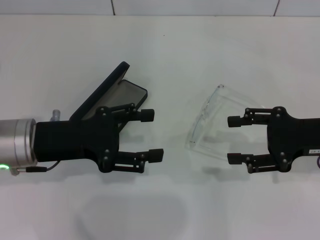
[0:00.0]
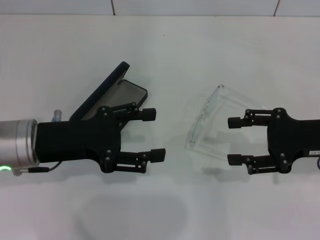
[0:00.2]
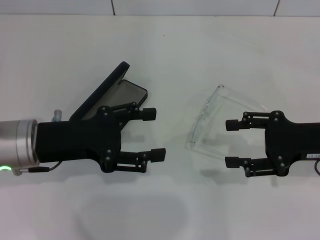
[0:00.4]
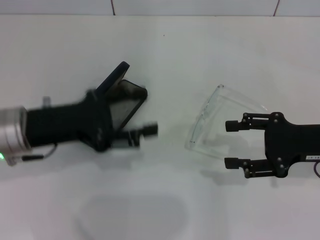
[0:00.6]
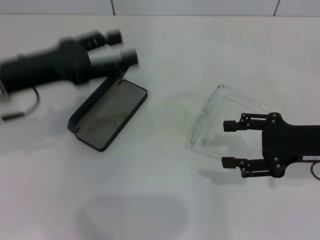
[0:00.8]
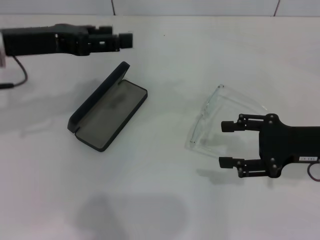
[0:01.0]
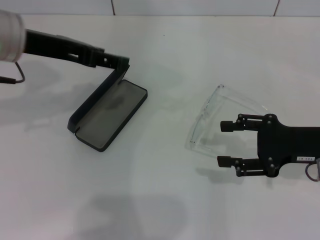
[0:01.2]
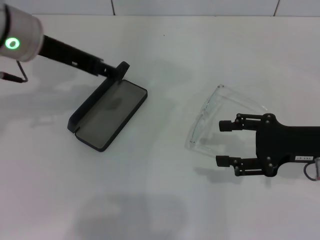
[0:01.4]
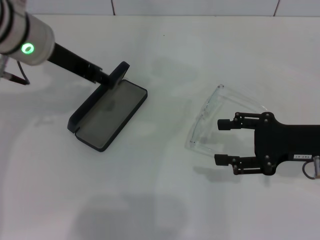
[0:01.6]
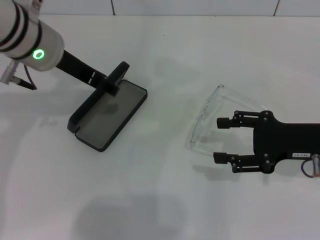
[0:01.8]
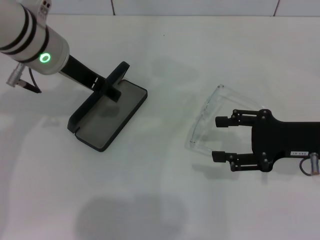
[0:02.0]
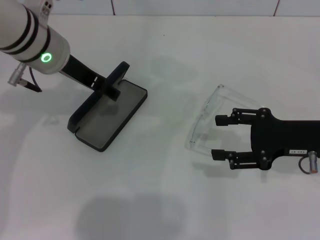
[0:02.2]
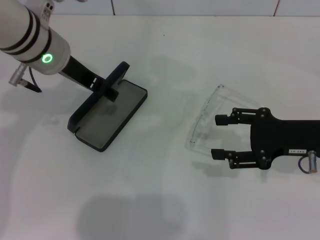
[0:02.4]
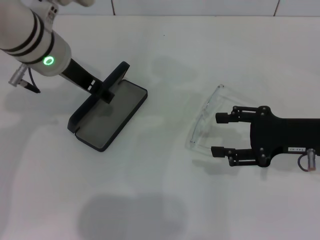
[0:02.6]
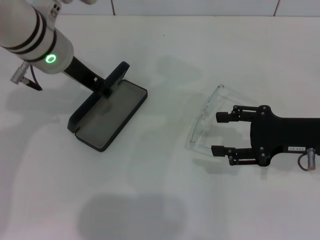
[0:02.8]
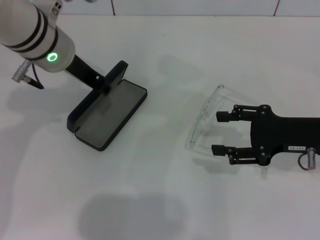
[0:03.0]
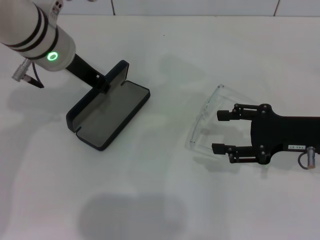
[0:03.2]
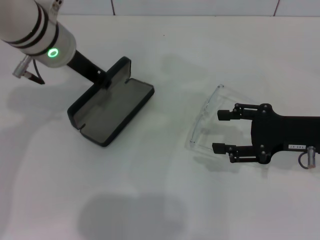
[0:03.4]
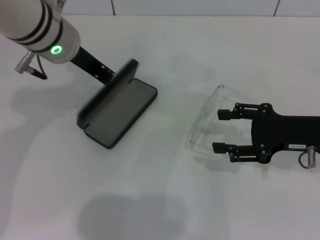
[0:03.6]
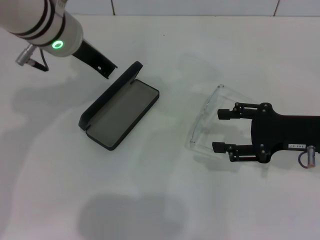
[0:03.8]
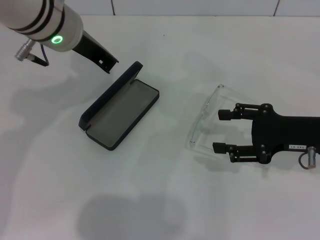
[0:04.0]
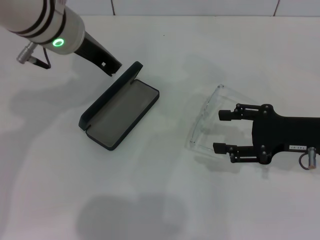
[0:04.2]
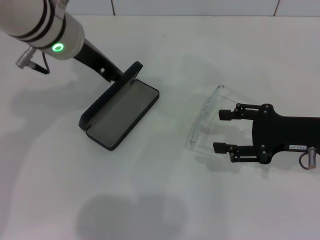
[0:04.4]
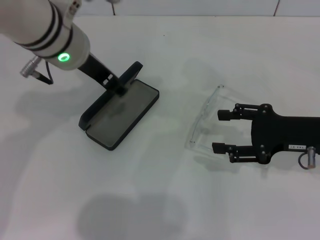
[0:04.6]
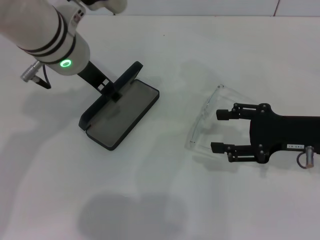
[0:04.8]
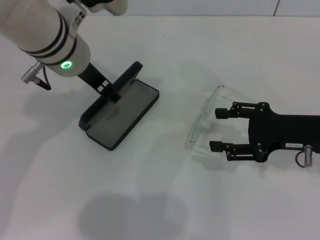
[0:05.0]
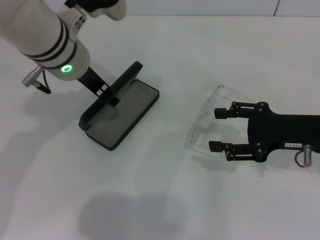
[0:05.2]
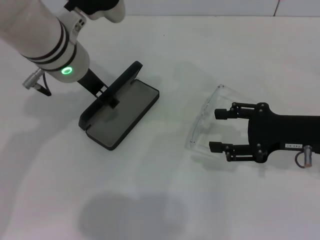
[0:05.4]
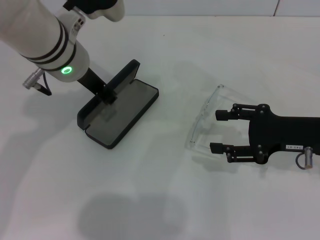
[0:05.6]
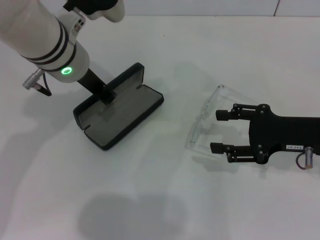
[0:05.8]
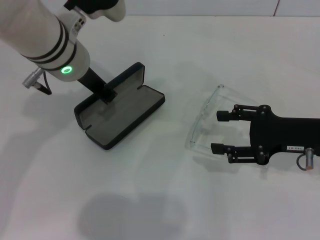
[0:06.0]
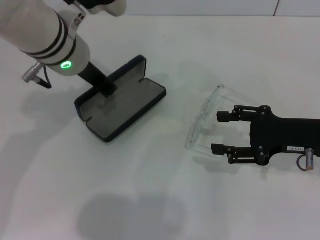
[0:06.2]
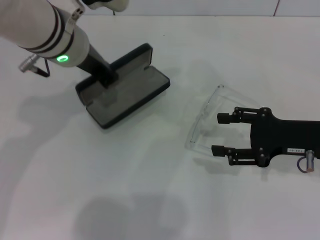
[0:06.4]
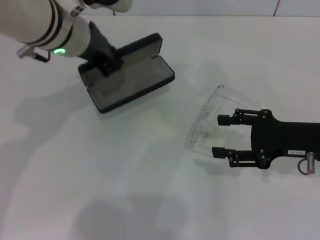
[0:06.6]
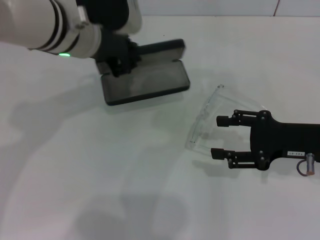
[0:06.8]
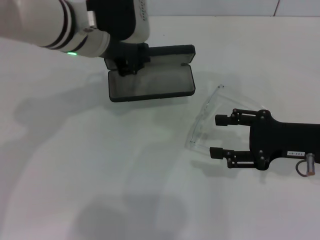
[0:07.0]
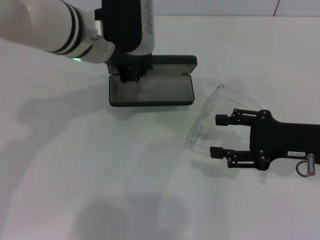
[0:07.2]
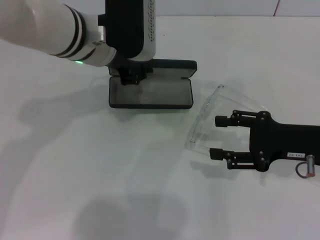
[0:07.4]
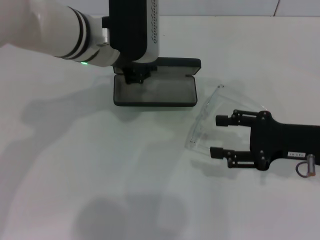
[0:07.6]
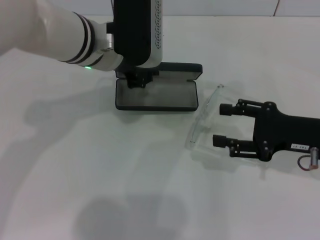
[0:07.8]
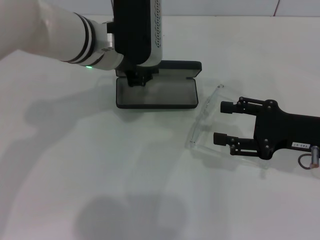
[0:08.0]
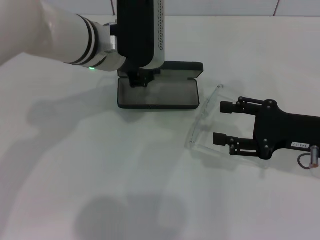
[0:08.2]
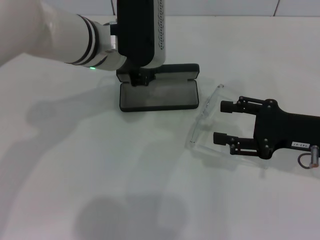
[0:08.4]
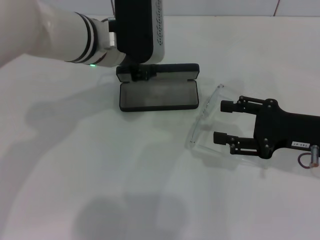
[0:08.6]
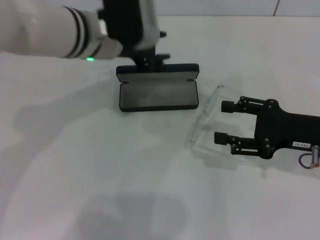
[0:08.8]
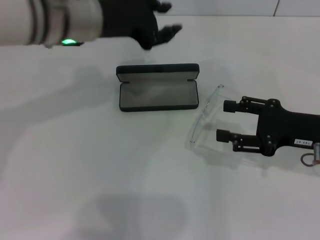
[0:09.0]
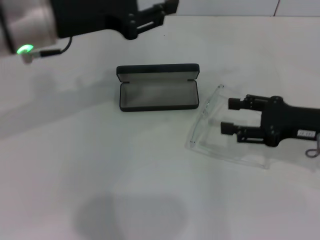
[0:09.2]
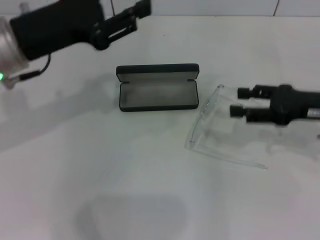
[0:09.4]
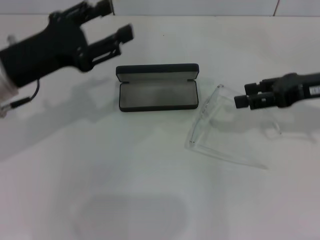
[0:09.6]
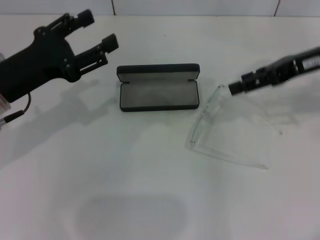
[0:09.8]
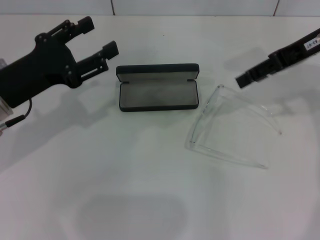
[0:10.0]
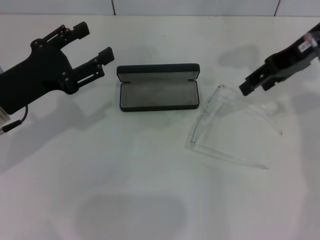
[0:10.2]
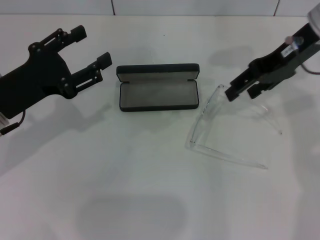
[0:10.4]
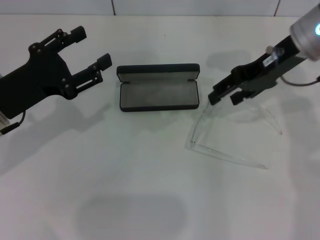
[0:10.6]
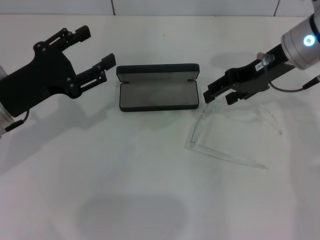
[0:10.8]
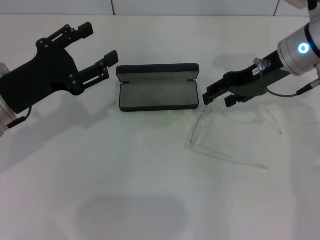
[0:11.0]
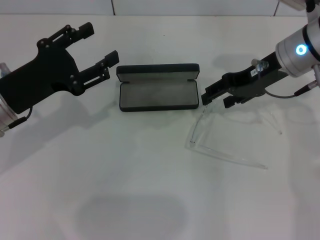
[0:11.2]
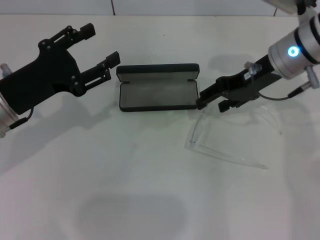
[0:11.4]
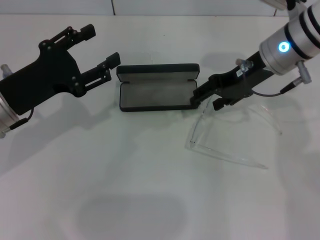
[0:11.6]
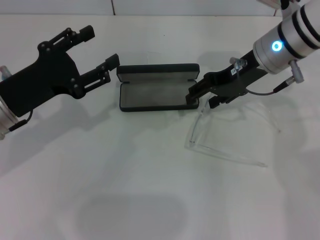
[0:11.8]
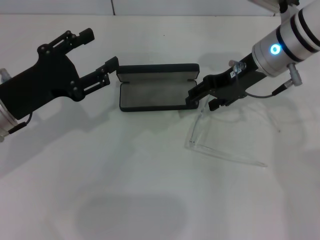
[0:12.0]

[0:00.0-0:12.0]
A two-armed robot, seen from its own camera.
Step, 0:00.0 to 0:05.8: Grab the glasses case with your left hand.
Step, 0:06.0 to 0:08.2: Place the glasses case in the center of the table with your left hand.
0:00.0 to 0:01.6: The left gripper is displaced forward and upward by roughly 15 cm.
0:01.6 to 0:03.0: The grippers make only small movements.
0:03.0 to 0:04.4: The left gripper closes up.
0:04.4 to 0:06.0: The left gripper opens, then closes once more.
0:09.0 to 0:10.4: The right gripper travels upward, forward and to the left by about 20 cm. The left gripper travels to the left, backward and downward by approximately 20 cm, and opens its fingers.
0:10.4 to 0:12.0: The right gripper heads downward, covering about 5 cm.

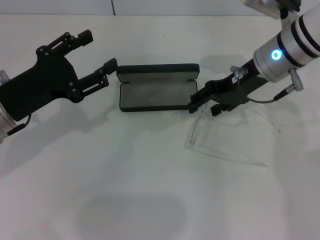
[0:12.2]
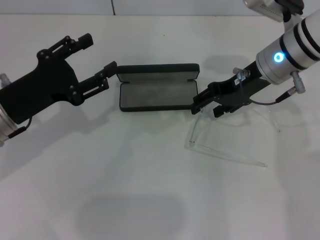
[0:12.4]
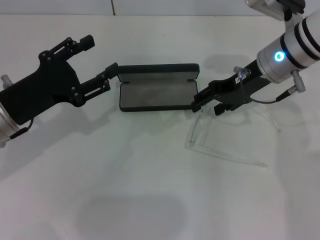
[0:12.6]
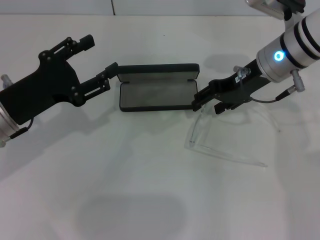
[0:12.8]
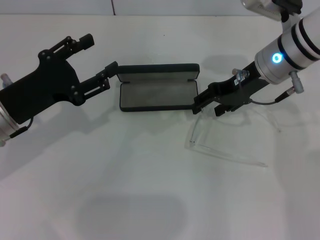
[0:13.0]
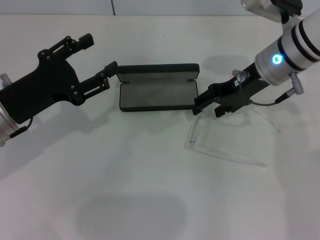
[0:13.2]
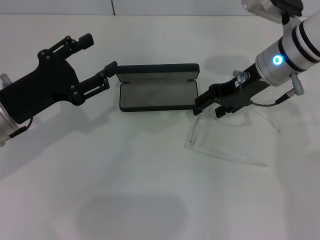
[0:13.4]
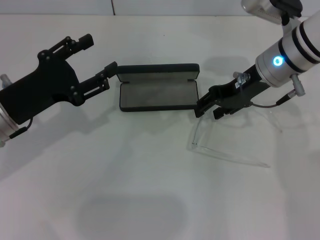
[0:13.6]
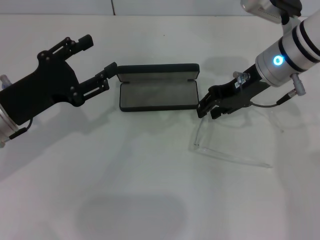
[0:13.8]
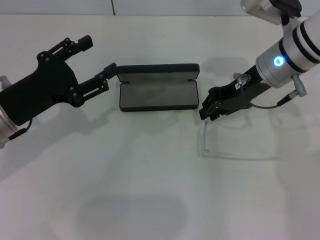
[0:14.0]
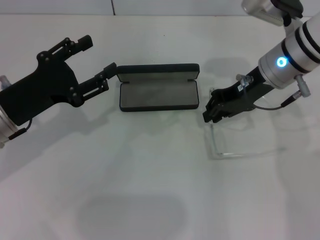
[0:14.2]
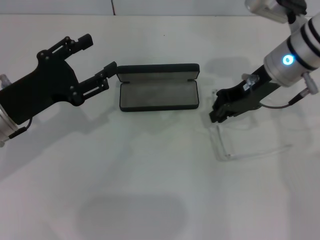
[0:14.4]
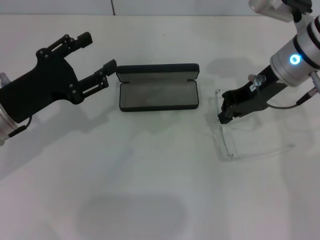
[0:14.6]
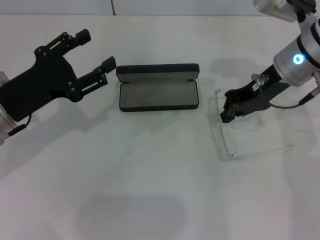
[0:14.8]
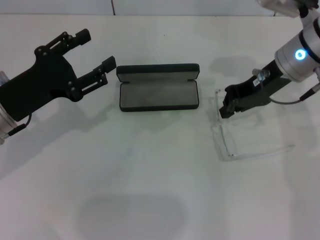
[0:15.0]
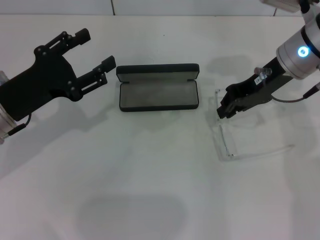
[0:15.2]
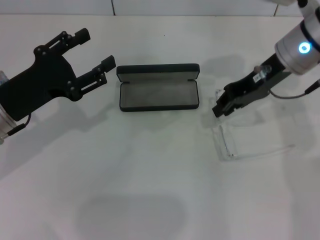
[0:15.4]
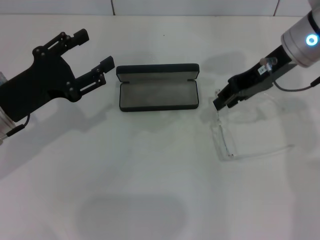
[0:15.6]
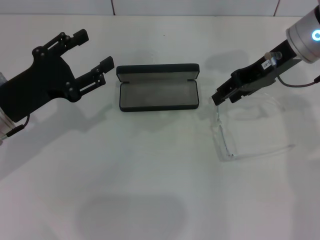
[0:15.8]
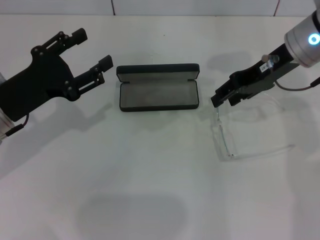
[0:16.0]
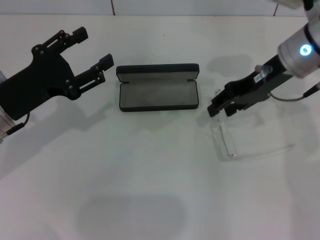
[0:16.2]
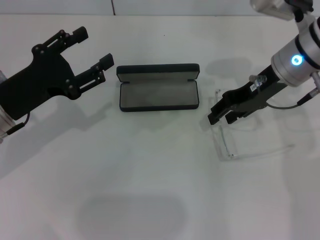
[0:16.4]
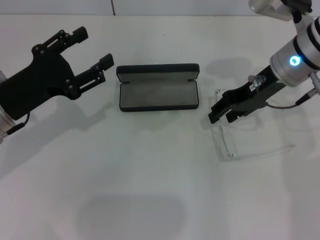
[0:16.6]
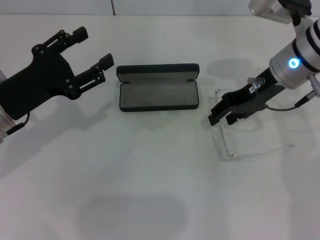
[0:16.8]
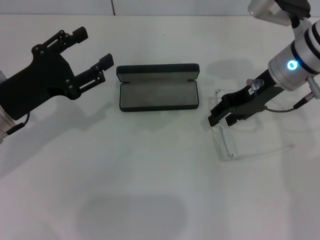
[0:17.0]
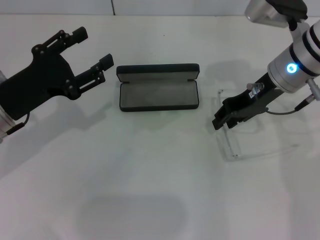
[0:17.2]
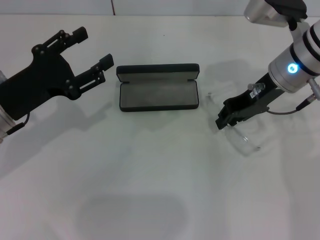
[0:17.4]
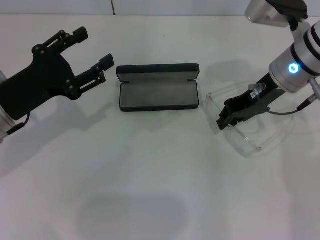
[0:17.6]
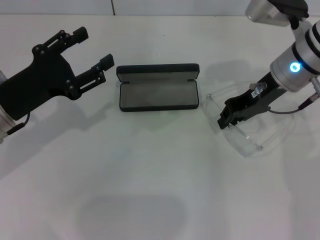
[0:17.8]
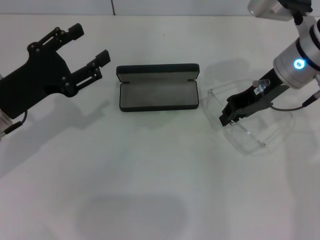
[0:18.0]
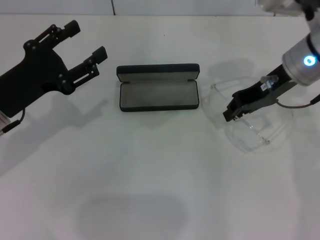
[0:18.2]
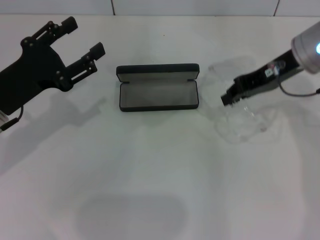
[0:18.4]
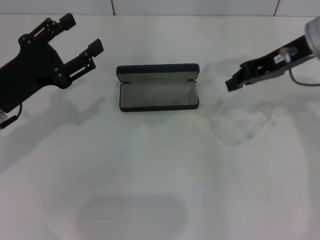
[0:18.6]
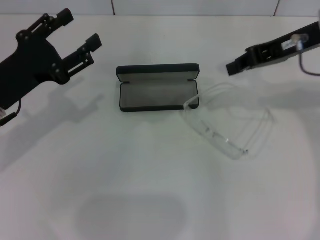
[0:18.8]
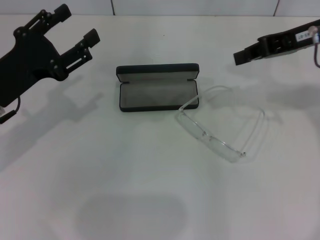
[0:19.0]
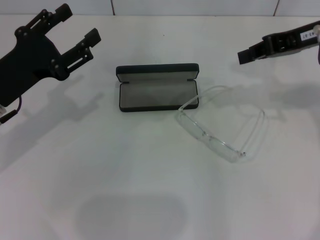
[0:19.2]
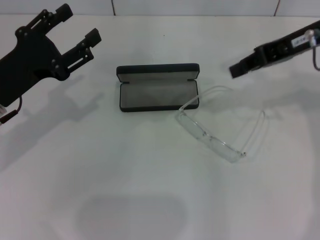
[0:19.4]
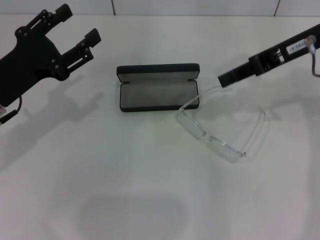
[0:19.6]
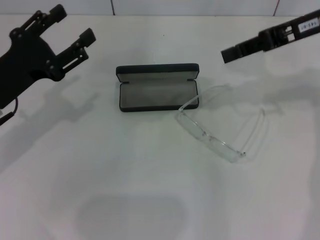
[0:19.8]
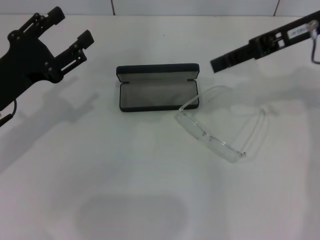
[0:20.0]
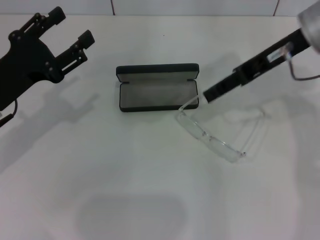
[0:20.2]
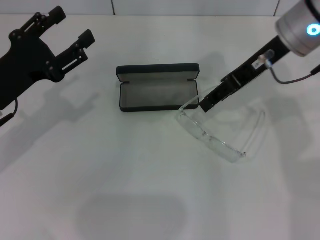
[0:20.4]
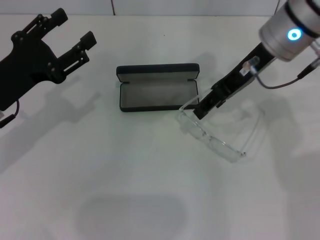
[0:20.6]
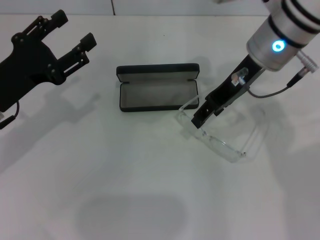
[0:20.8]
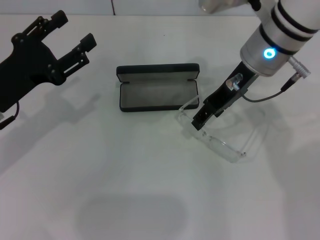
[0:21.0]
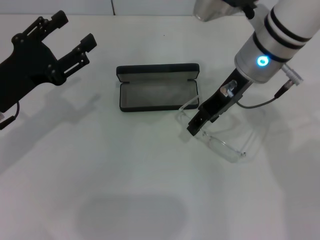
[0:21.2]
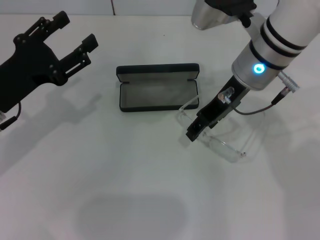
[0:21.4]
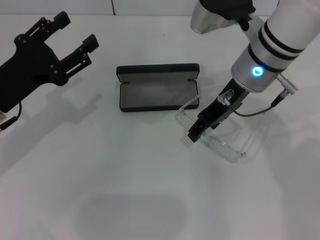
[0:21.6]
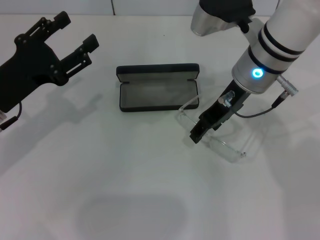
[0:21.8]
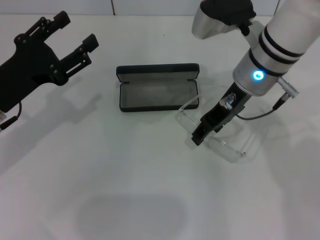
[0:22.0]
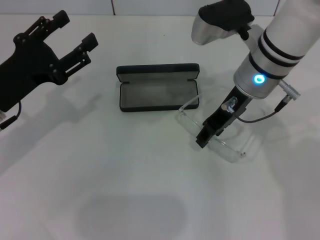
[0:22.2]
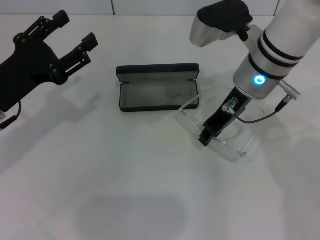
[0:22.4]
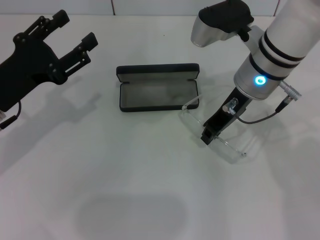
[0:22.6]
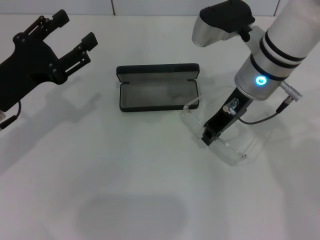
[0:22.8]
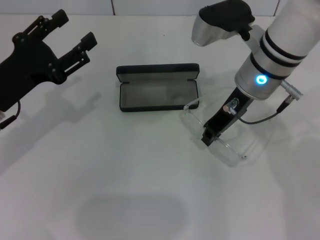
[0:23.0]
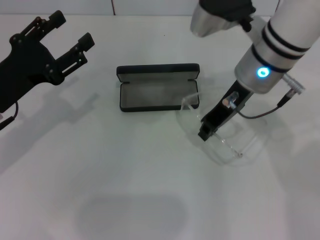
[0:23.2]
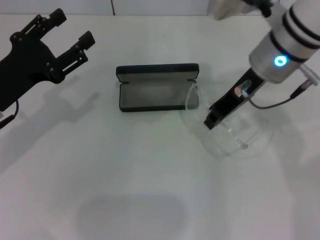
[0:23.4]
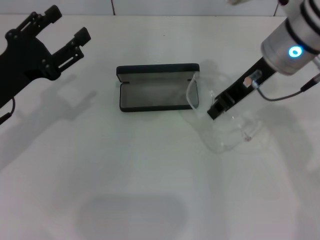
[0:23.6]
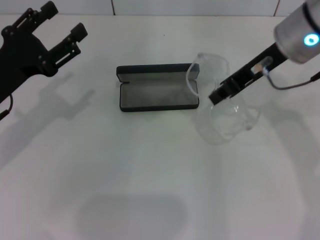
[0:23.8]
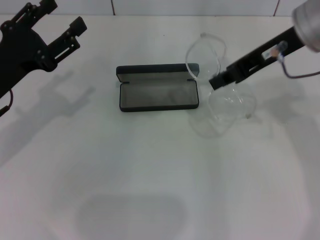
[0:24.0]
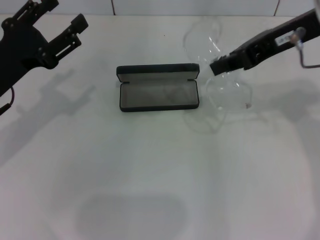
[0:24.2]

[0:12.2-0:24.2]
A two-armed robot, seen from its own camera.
Step, 0:12.2 to 0:22.8: Grab the eyeglass frame with your right hand.
0:12.2 to 0:13.8: Both grippers stay about where they are.
0:13.8 to 0:15.2: The right gripper closes up.
0:15.2 to 0:16.6: The right gripper opens up.
0:16.6 to 0:18.2: The right gripper closes up.
0:18.2 to 0:19.8: The right gripper shifts about 10 cm upward.
0:19.8 to 0:21.2: The right gripper is displaced to the left and downward by about 15 cm, and opens its fingers.
0:21.2 to 0:22.6: The right gripper closes its fingers.
0:22.6 to 0:24.2: The right gripper goes roughly 15 cm upward and to the right.
